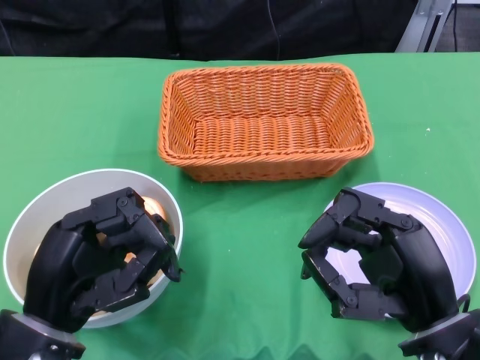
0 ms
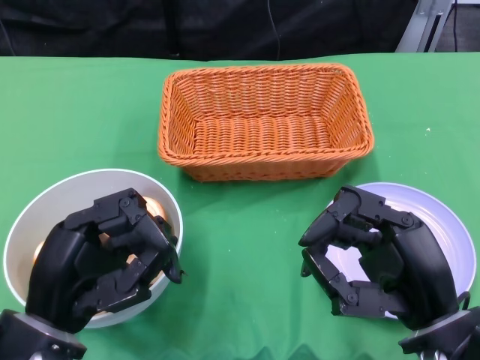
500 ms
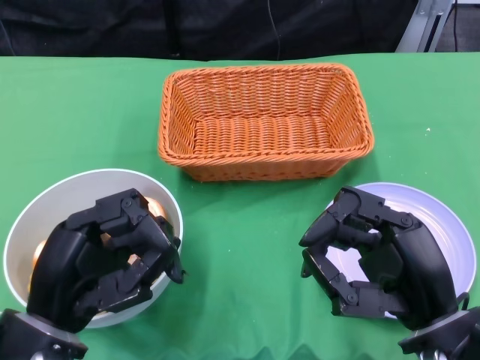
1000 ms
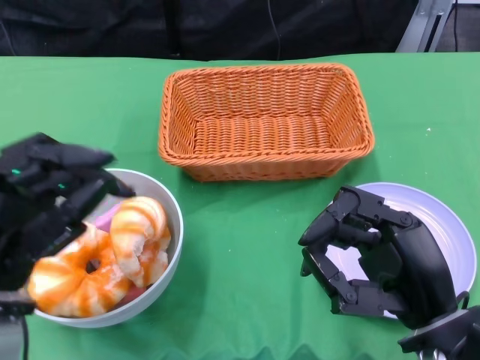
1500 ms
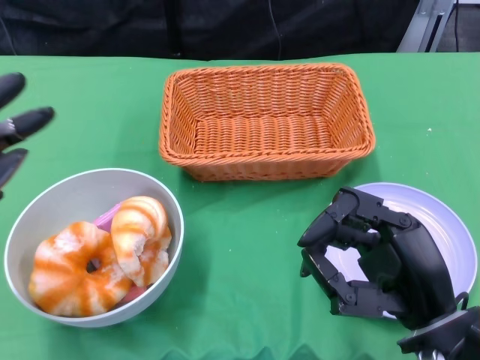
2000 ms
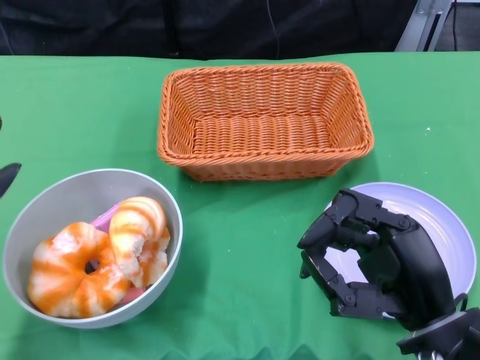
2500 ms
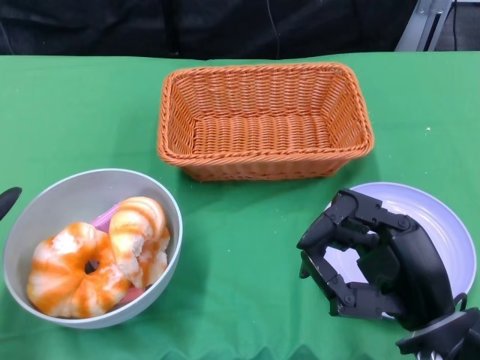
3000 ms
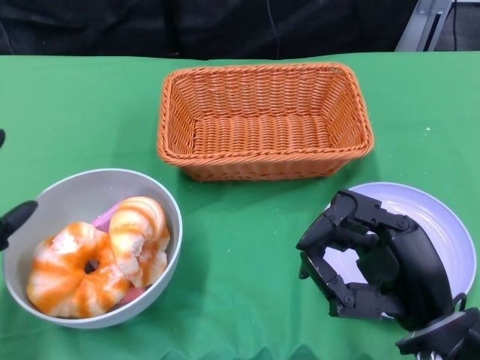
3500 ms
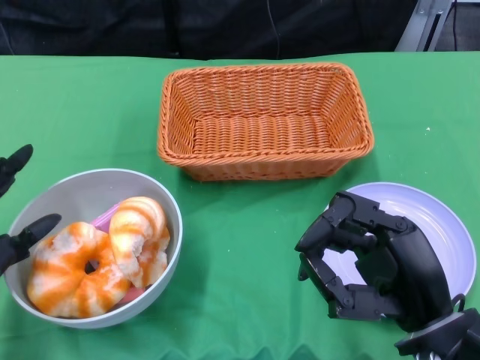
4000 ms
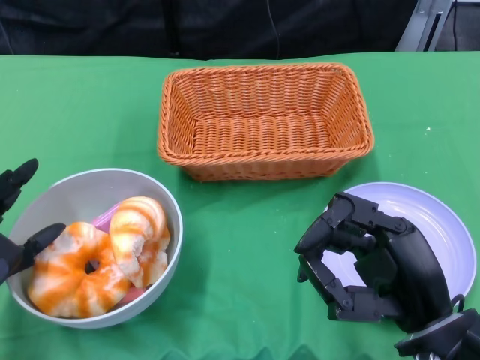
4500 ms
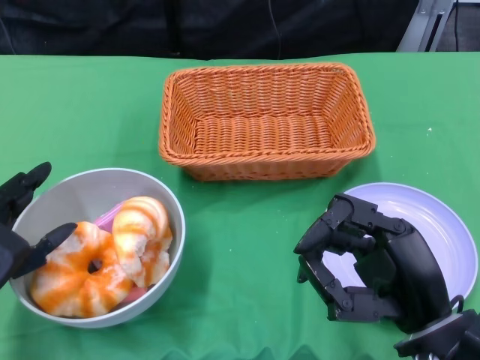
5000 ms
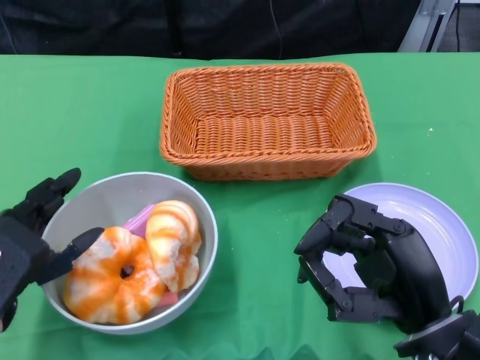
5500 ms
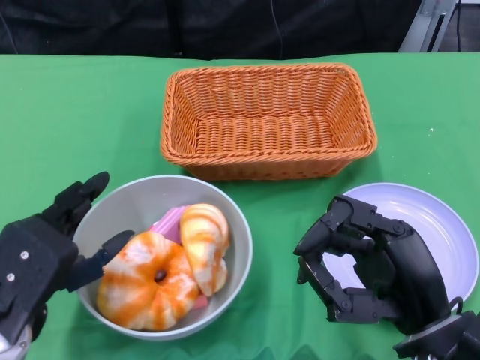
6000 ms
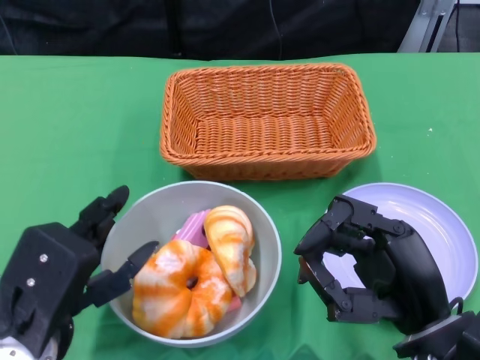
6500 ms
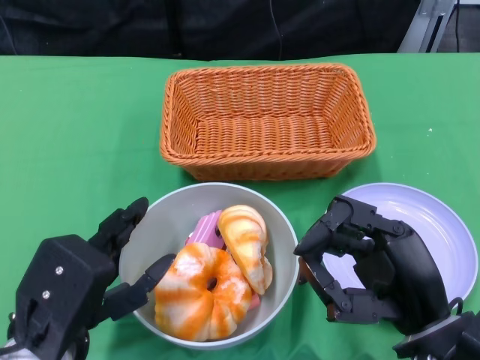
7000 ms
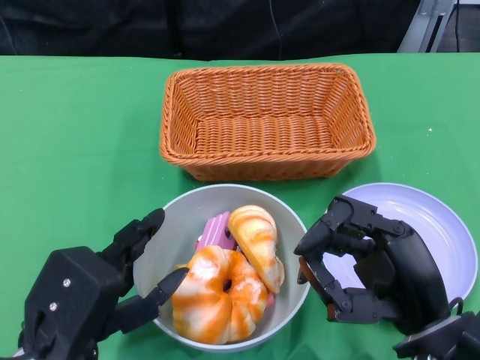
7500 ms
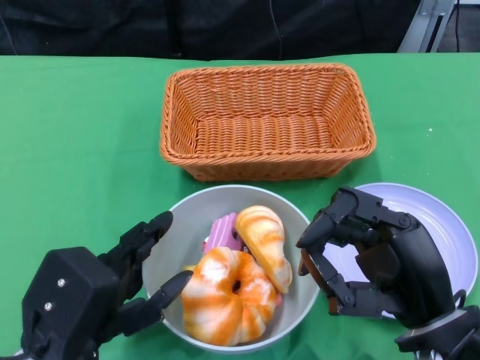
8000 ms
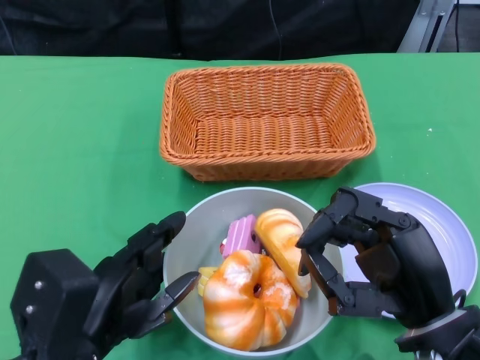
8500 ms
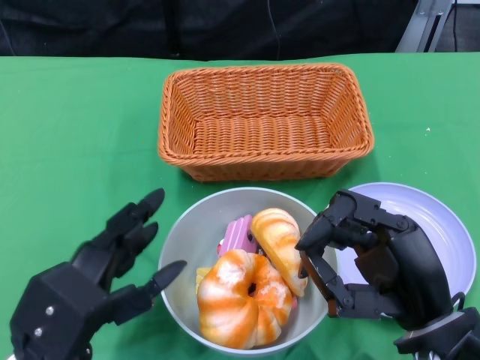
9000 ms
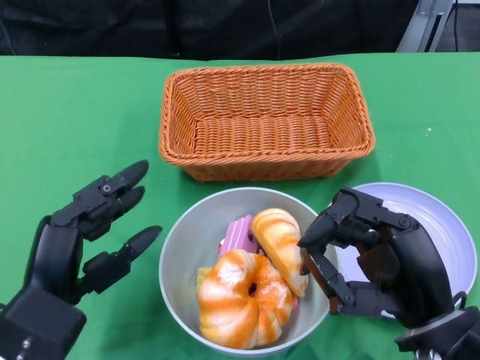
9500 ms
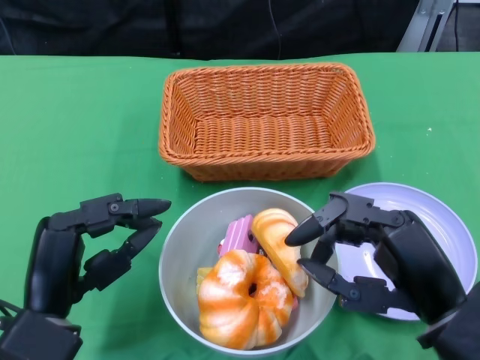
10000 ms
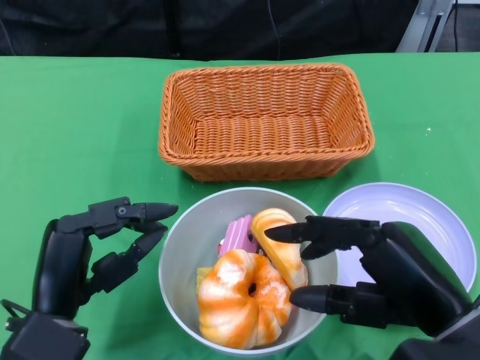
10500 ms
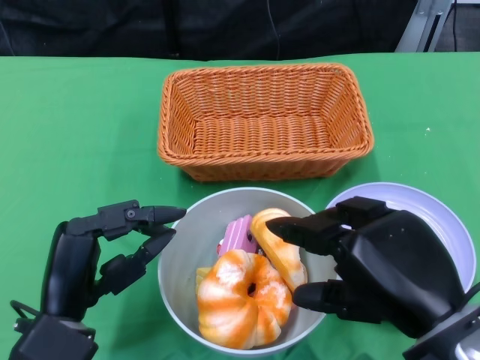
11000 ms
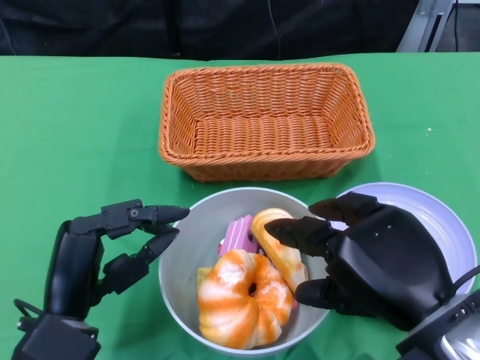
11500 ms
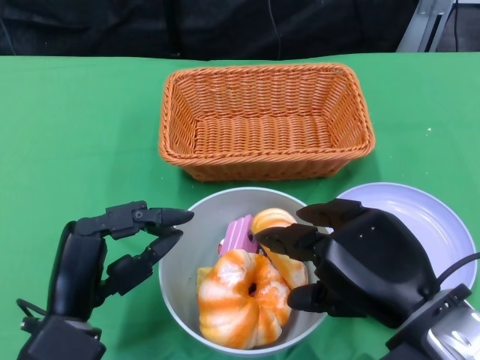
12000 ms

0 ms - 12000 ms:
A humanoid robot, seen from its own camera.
Step, 0 ms - 9500 ms: Push the bowl to the center of the table using the left gripper.
2000 ms - 4000 ms: The left hand travels downward by about 5 cm.
4000 ms - 6000 ms: The left hand is displaced to the right by roughly 5 cm.
6000 ms - 8000 ms: The left hand changes place by some 5 cm.

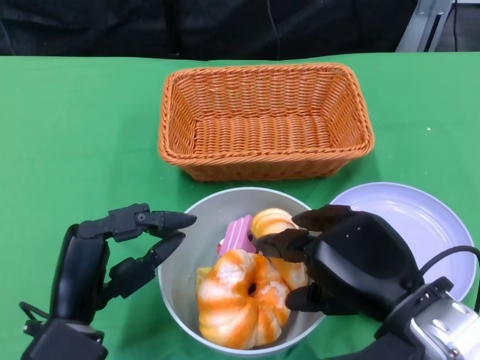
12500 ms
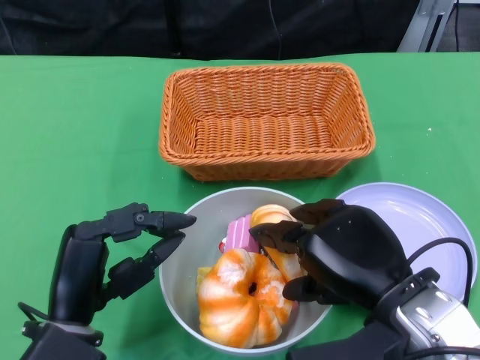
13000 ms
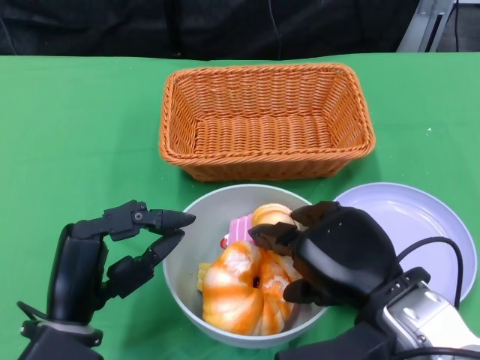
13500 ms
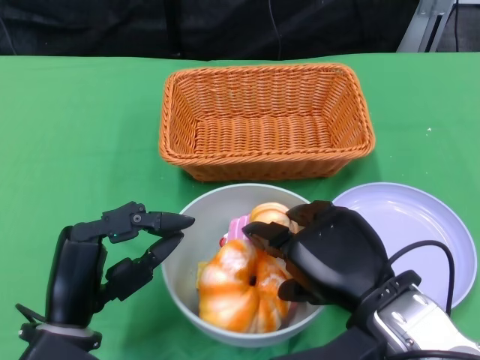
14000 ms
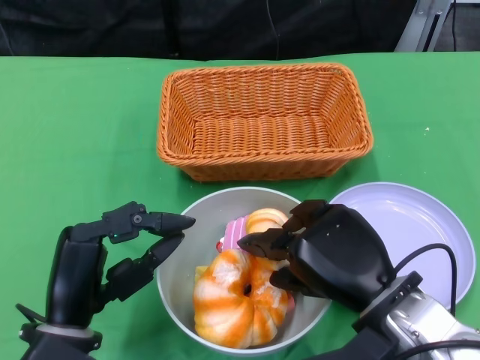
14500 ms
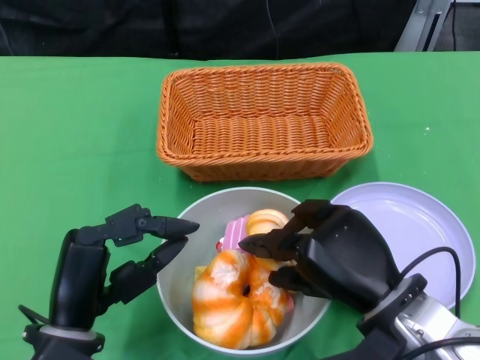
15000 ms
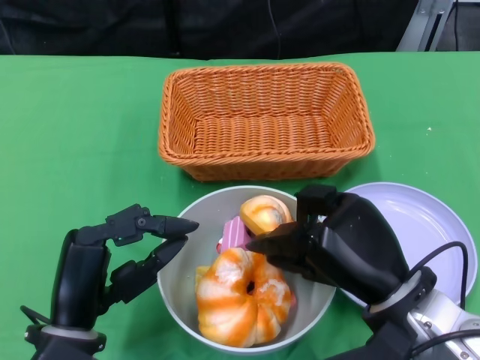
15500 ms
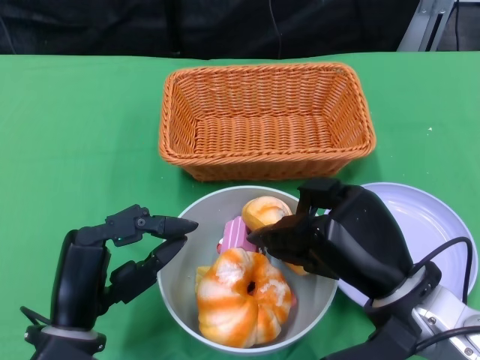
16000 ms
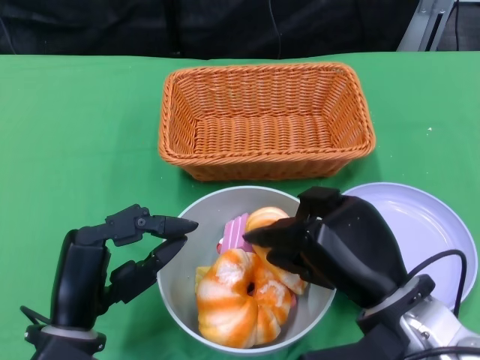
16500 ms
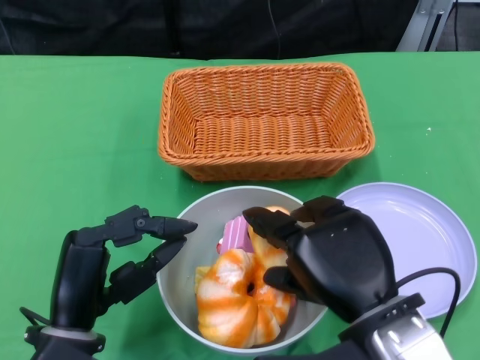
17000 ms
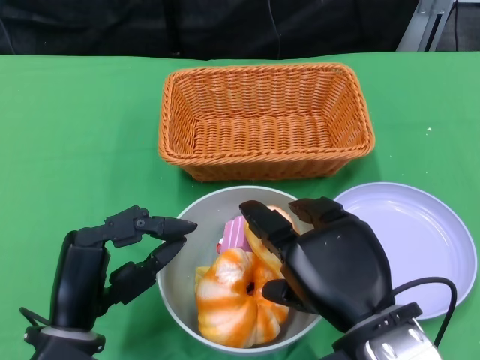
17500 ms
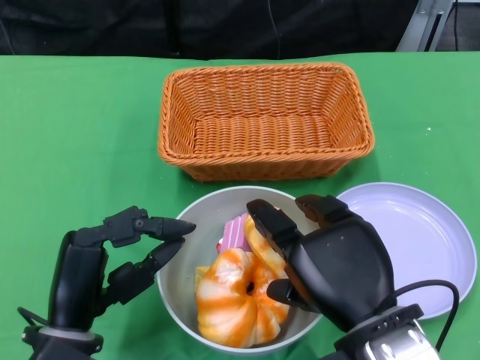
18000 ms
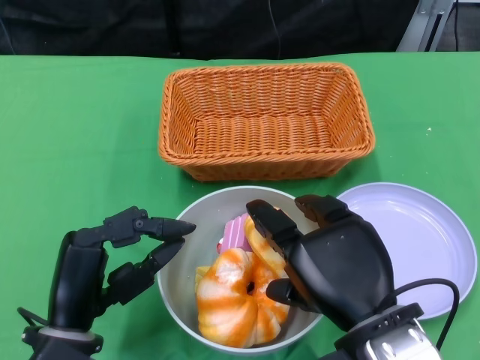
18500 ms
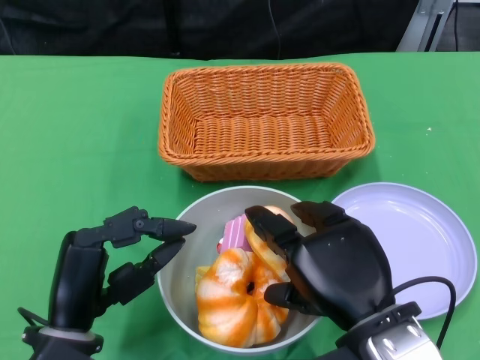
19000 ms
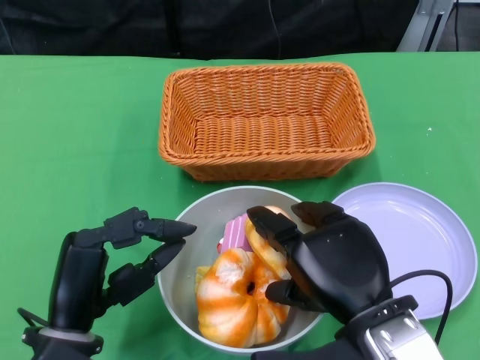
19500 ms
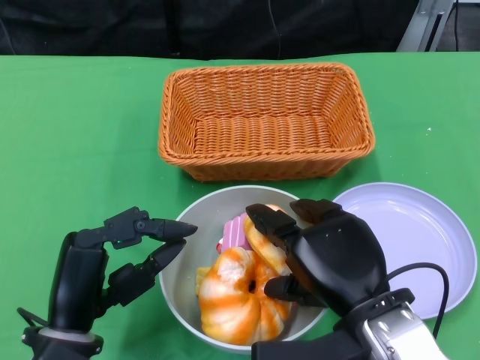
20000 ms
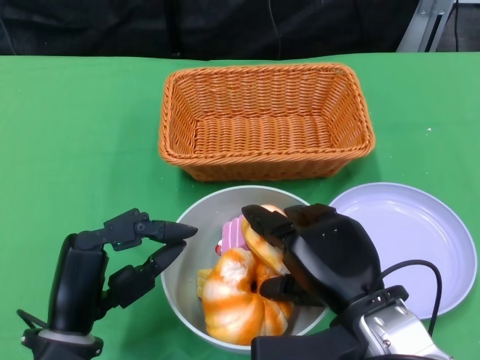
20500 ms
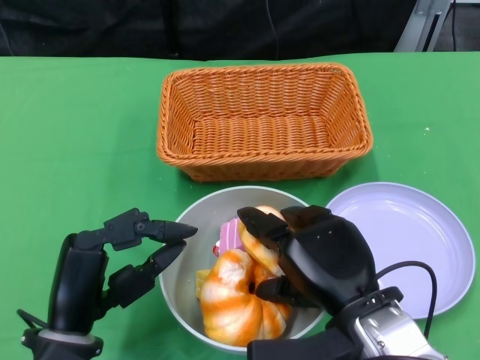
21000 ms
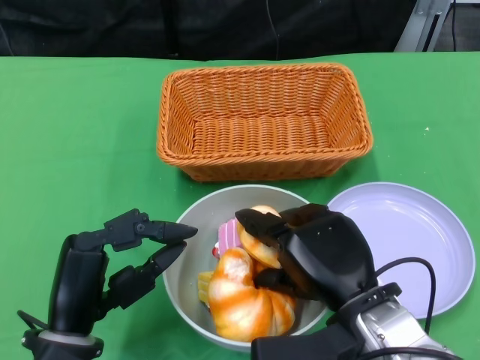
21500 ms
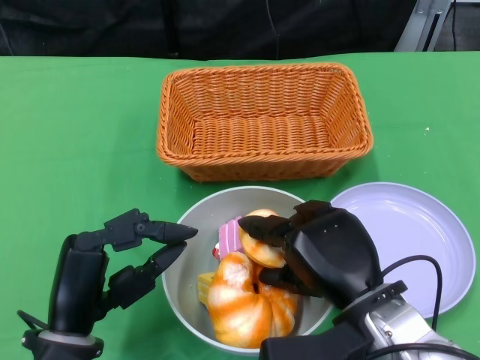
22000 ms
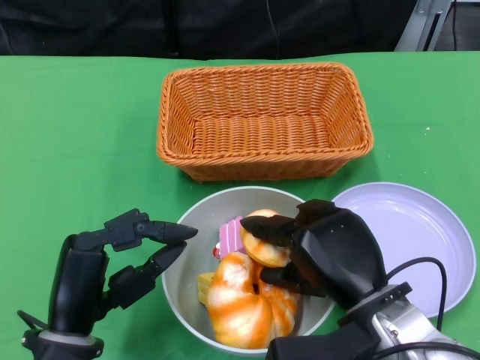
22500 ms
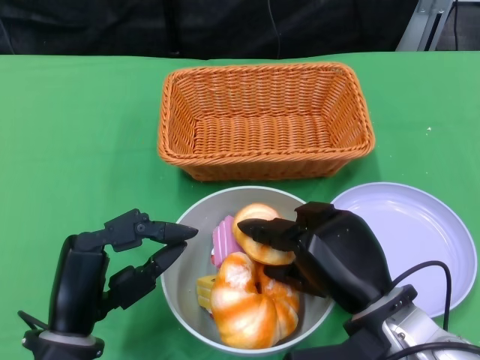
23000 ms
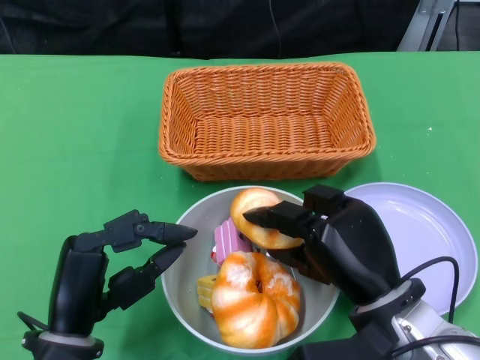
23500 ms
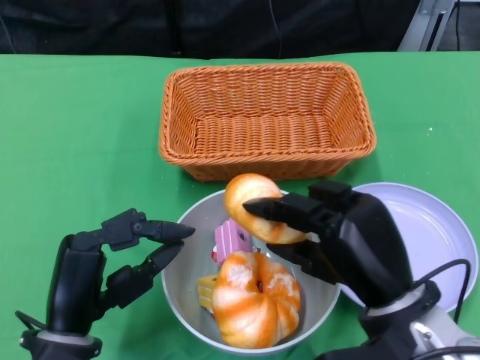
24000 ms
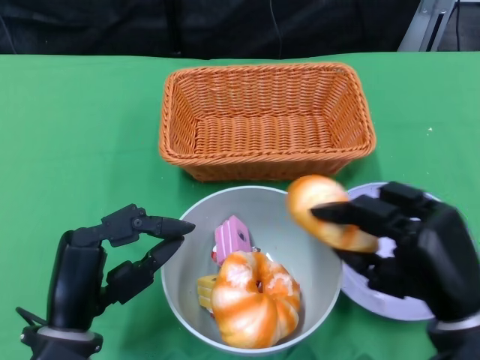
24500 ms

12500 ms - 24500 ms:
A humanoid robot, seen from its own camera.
12500 ms - 14500 ms: There are only small adjustments of the hands.
14500 ms - 16500 ms: There are only small adjustments of the hands.
18500 ms - 22500 ms: The hands make only small movements.
22500 ms - 24500 ms: The right hand travels to the right by some 5 cm.

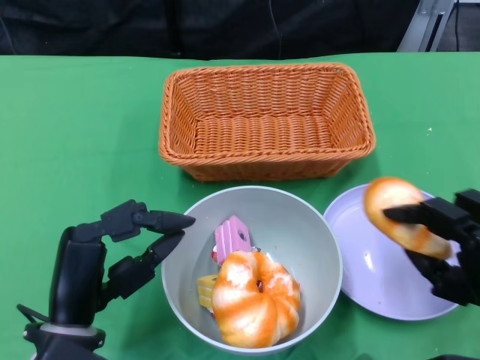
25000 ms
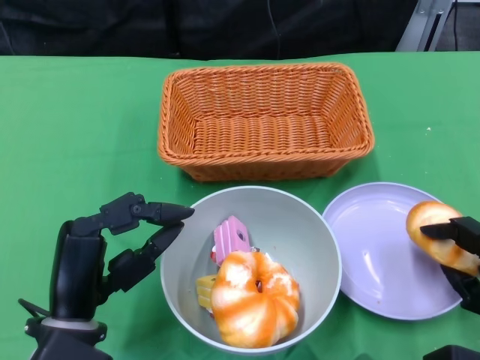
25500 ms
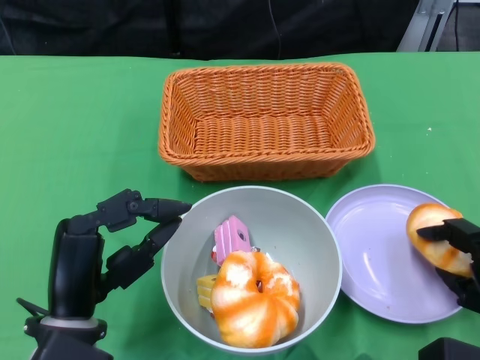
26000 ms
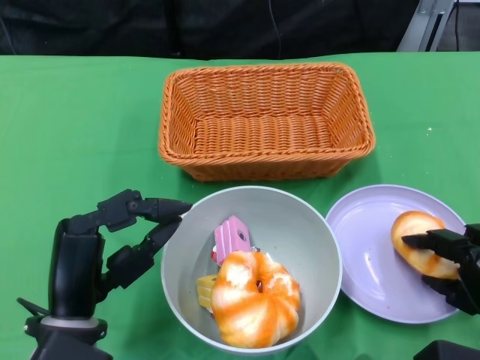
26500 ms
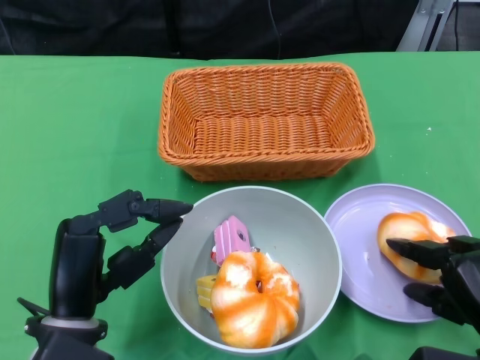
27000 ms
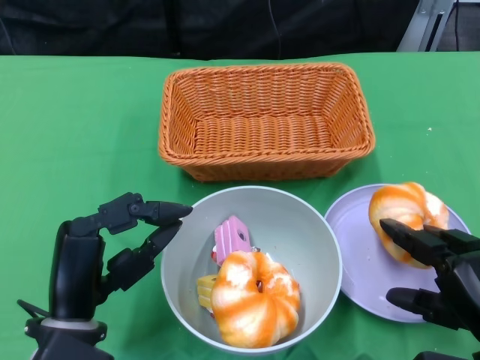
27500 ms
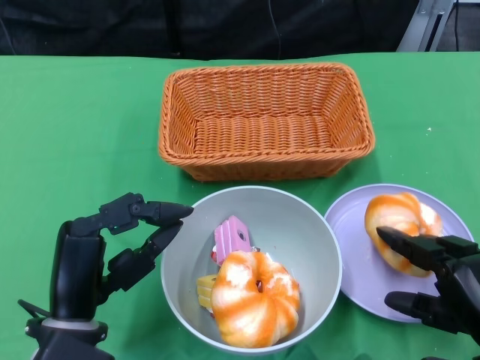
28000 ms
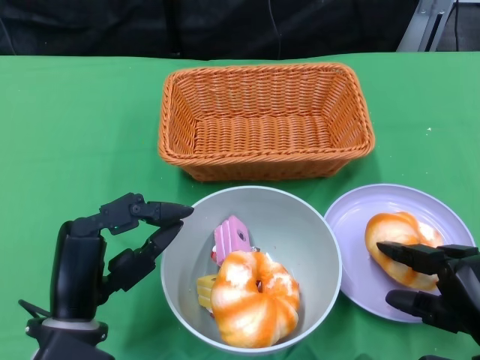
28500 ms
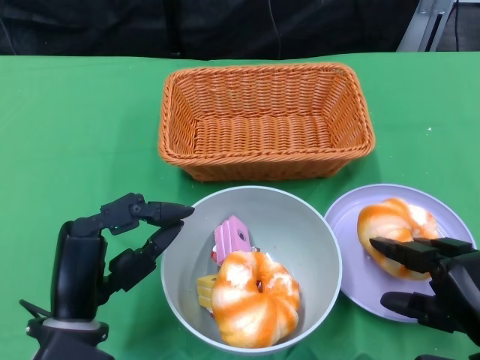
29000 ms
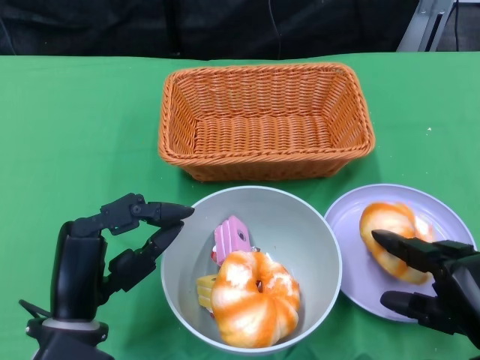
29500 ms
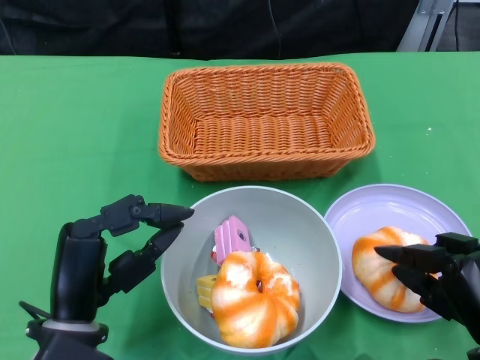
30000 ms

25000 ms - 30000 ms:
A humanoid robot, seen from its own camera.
27500 ms - 30000 ms: The hands make only small movements.
